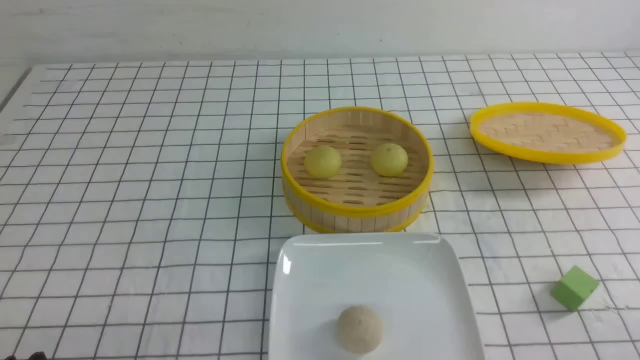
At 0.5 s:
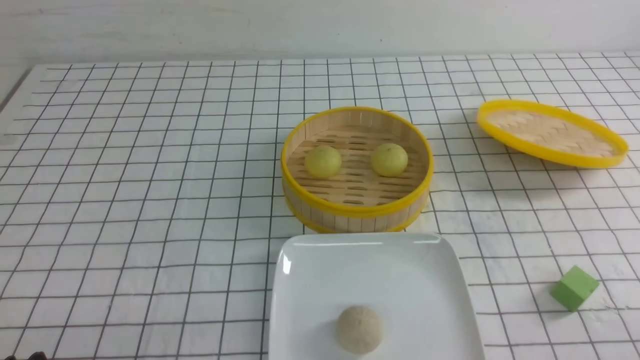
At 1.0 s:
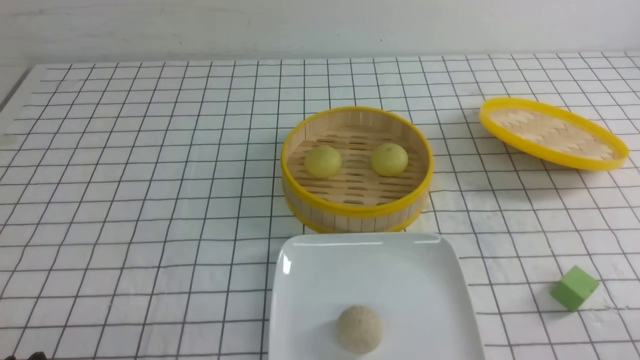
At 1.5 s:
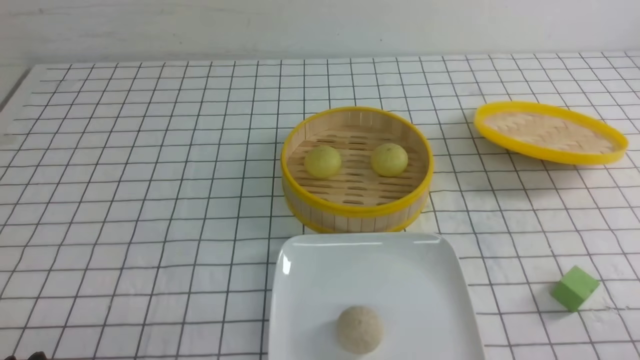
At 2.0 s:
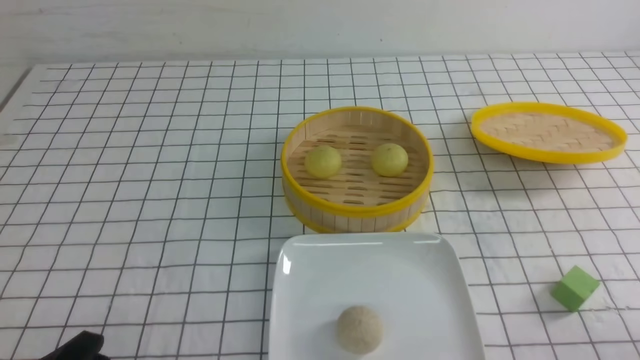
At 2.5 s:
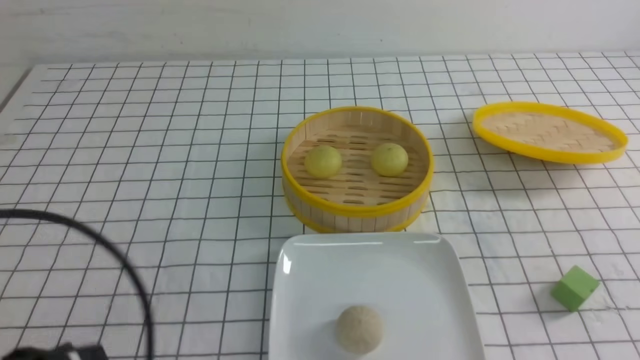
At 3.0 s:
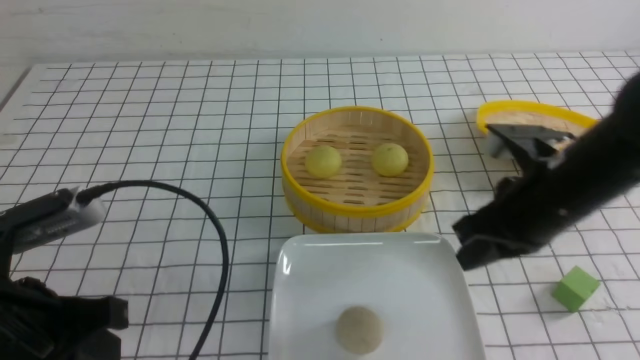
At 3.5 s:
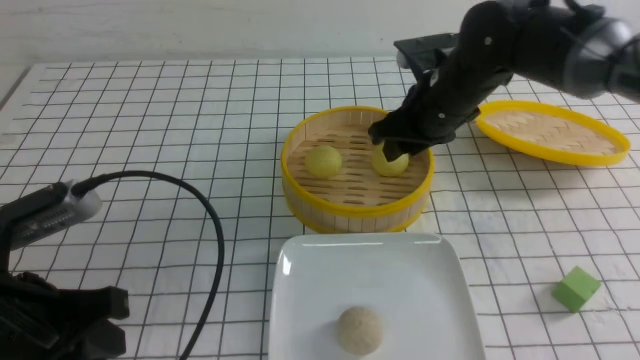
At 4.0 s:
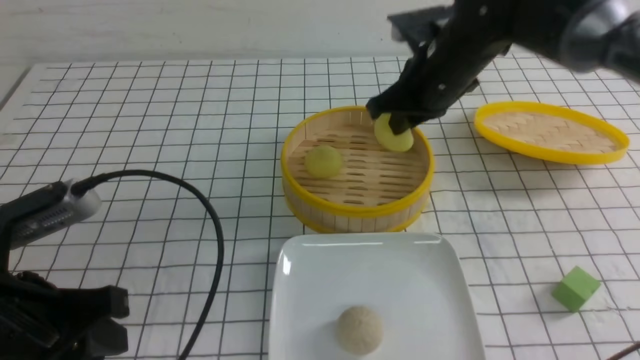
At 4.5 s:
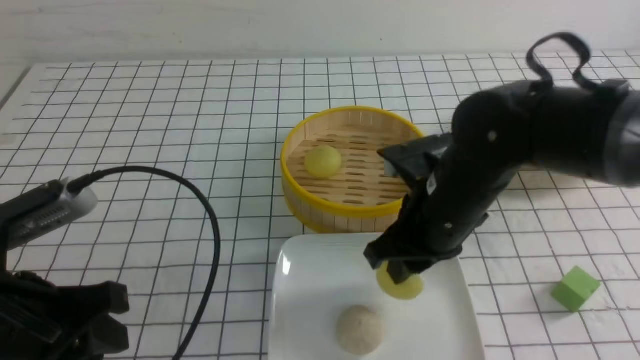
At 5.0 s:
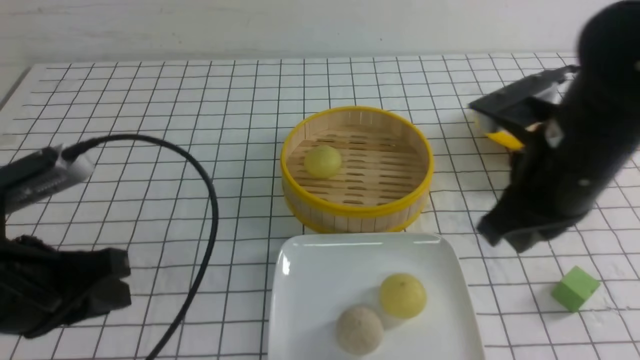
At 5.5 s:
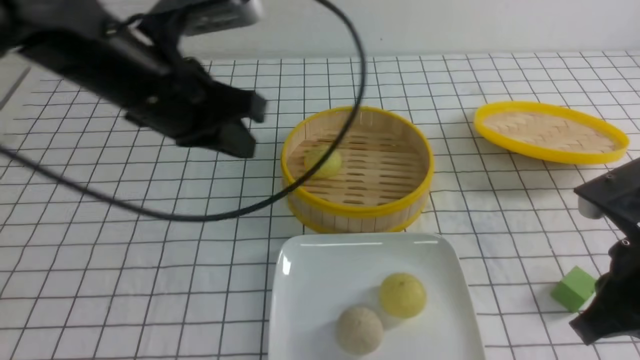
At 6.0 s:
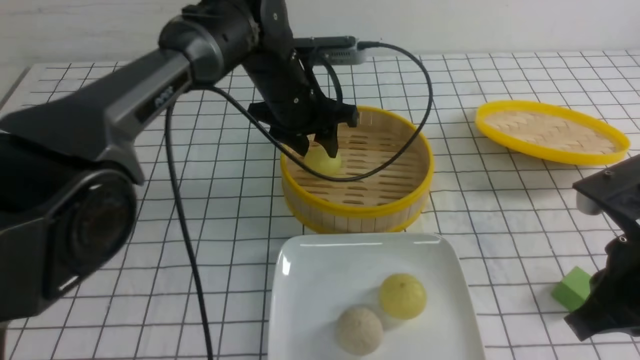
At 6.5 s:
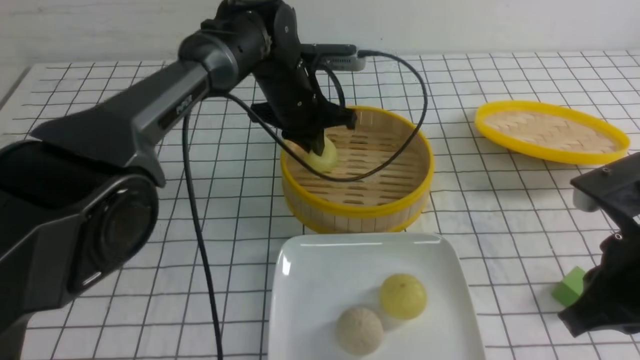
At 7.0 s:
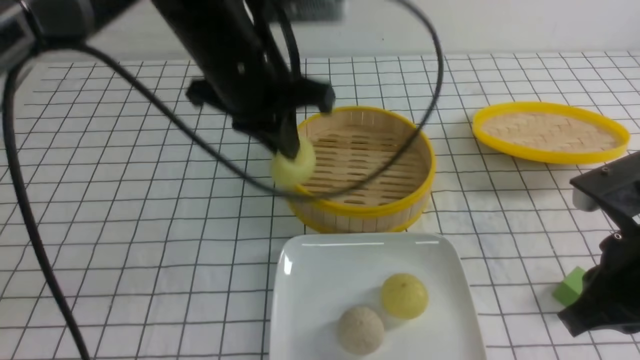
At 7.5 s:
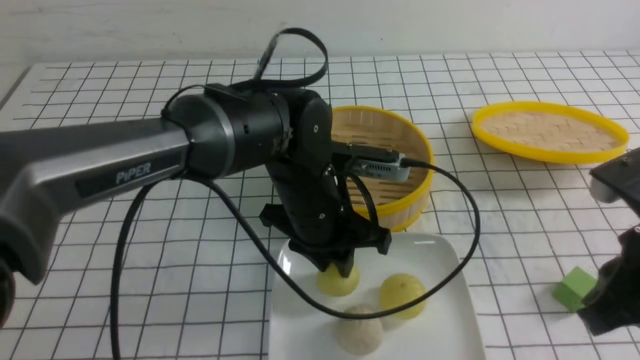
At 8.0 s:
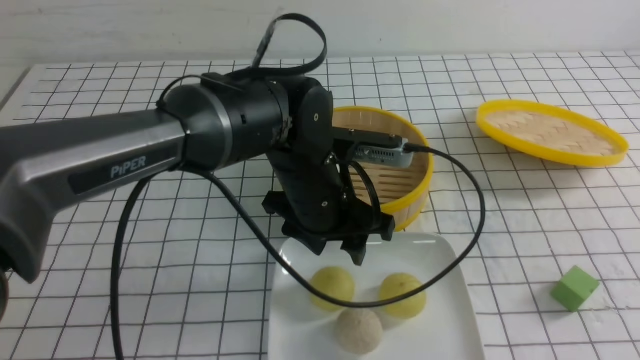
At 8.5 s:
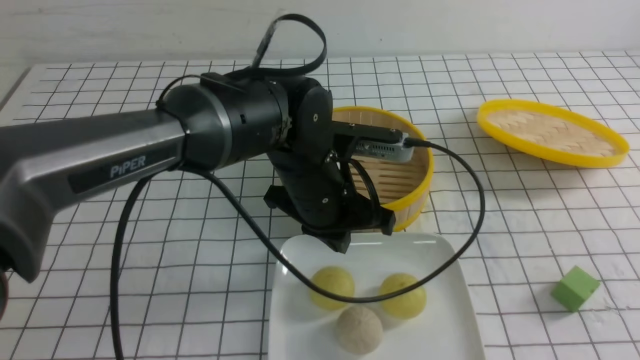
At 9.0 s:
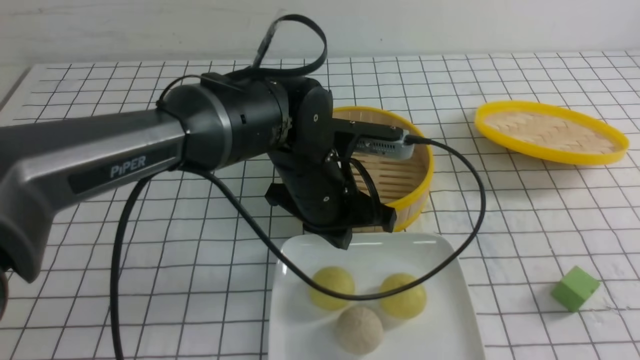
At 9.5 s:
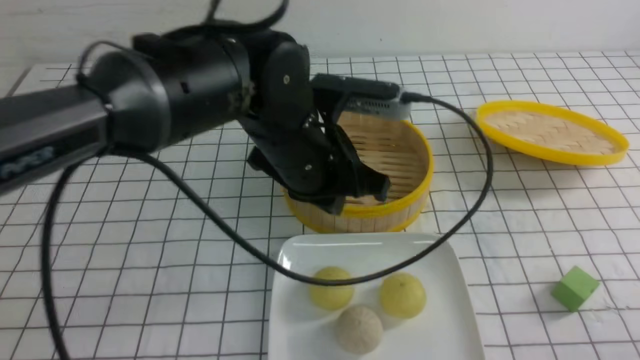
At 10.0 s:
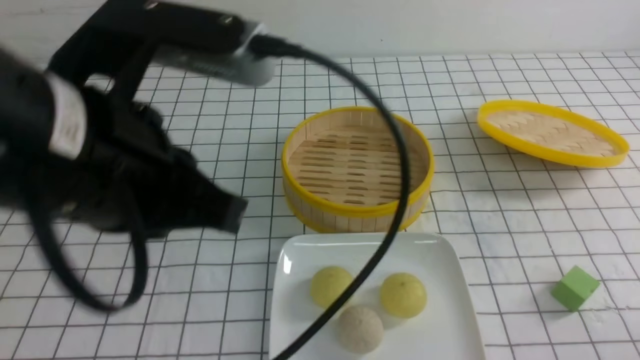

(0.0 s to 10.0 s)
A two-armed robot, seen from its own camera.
Step, 0.0 s - 3.5 s: use the right arm to grab the steamed stuffed bun that is closest to it.
Step, 4.0 s - 4.5 s: use the right arm to put the steamed stuffed bun into the plate.
Step, 5.0 s - 6.5 s: use the left arm to grab the steamed stuffed bun that is closest to it.
Step, 7.0 s - 8.0 s: use the left arm to put the steamed stuffed bun into the plate.
2.0 s - 4.0 s: The left gripper goes roughly 10 cm forward and upward, and closes, then opens again. Meanwhile the right gripper travels forward and to the left by about 40 cm, and closes.
4.0 s - 6.0 s: The left gripper shifts some 35 cm forward and to the right, and opens, while the right gripper moves backward and to the right, about 25 cm, and opens, then closes again.
6.0 s - 8.0 s: The left gripper moves backward, roughly 15 cm, and closes, then reopens; the right gripper shifts some 15 cm backward, to the right and upward.
8.0 s - 10.0 s: The left gripper goes about 25 cm upward, backward and to the left, and closes. The right gripper moves downward, some 15 cm.

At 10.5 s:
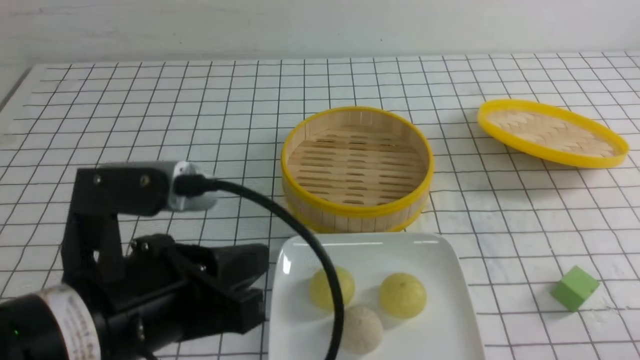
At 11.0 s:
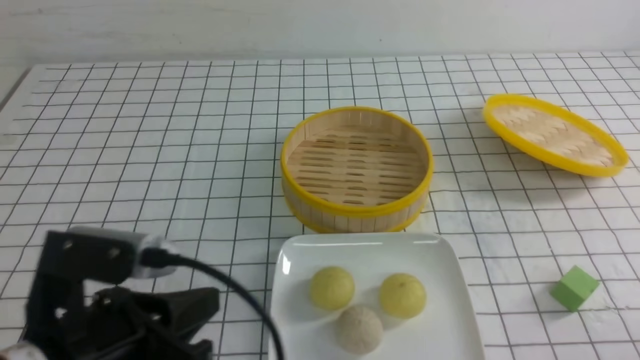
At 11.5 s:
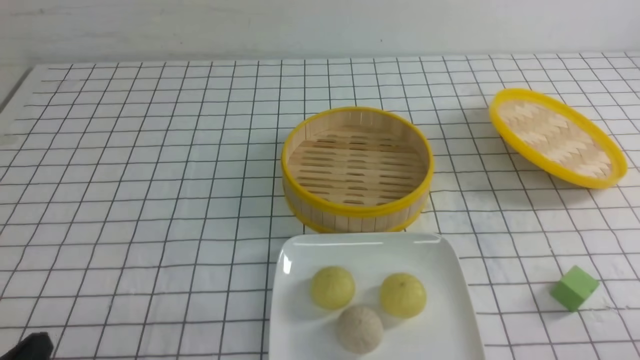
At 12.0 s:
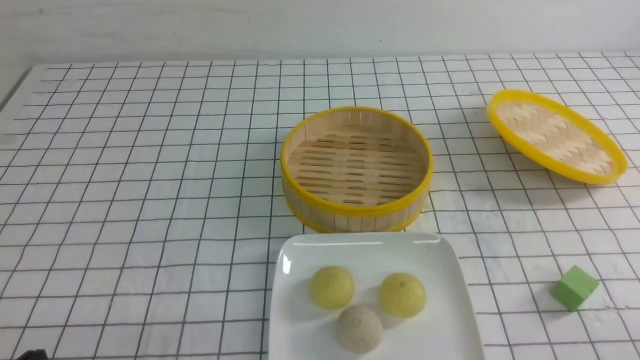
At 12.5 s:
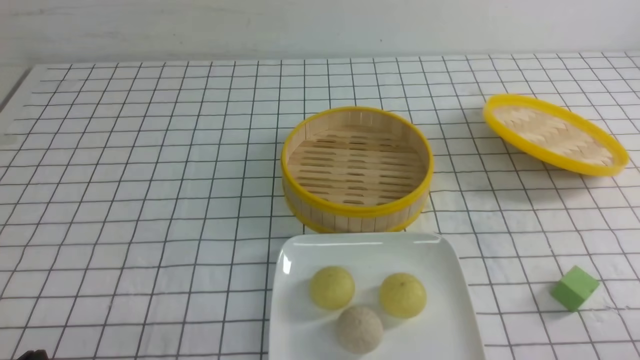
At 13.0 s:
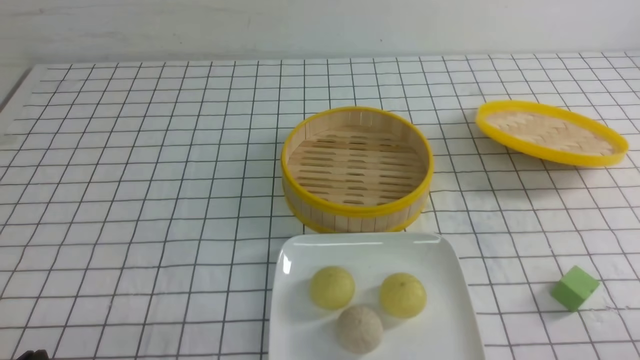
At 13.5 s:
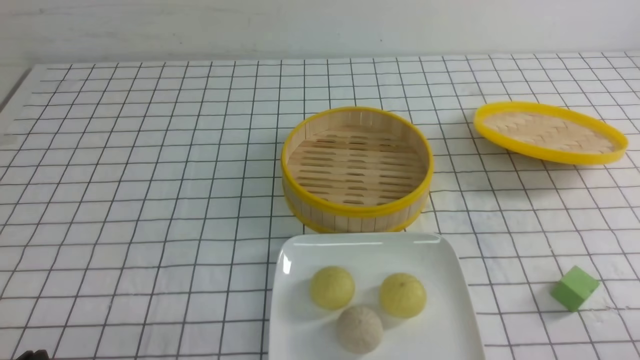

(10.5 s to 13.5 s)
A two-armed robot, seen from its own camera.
10.5 s - 12.0 s: The left gripper heads to the left, downward and backward, covering approximately 20 cm.
12.0 s - 13.5 s: Both grippers stay put.

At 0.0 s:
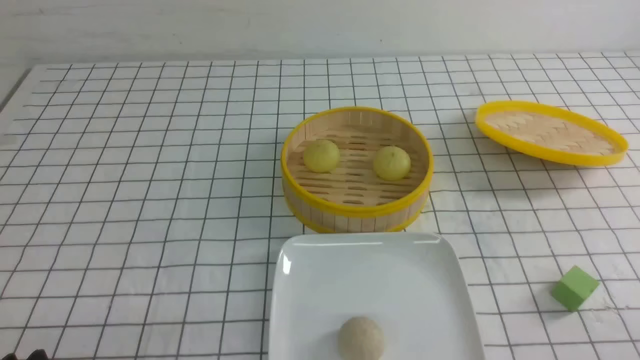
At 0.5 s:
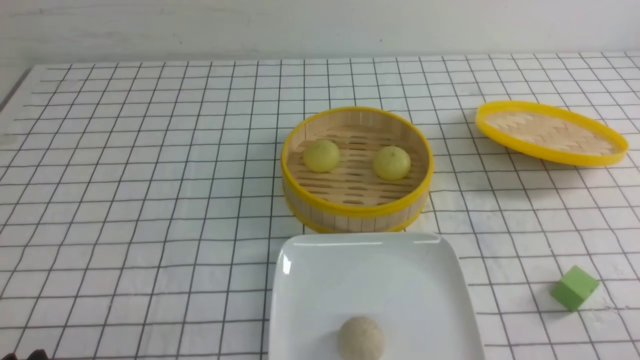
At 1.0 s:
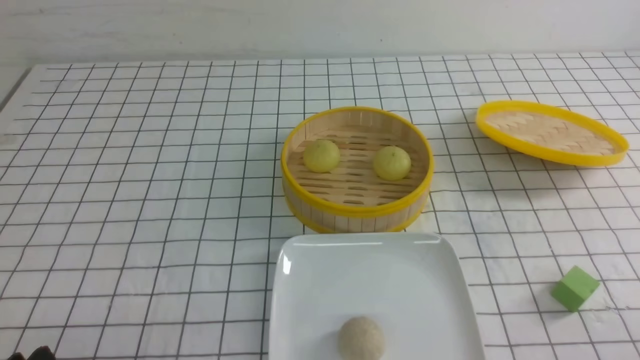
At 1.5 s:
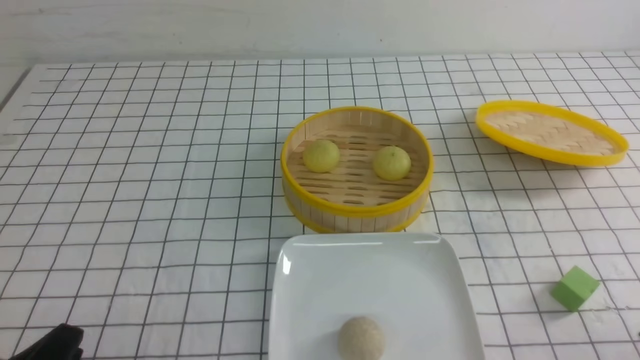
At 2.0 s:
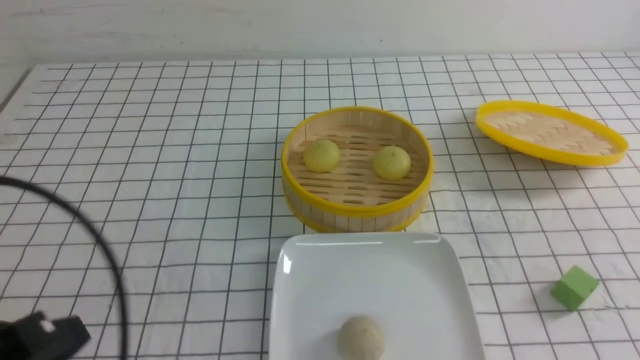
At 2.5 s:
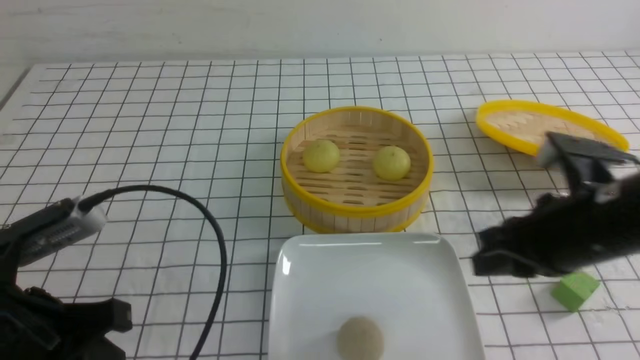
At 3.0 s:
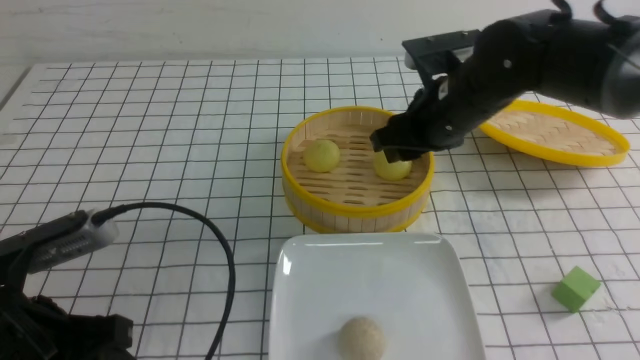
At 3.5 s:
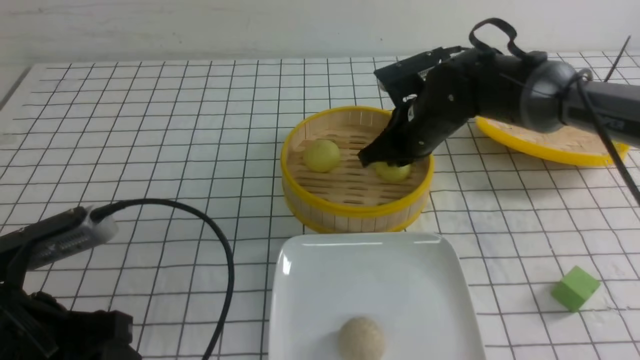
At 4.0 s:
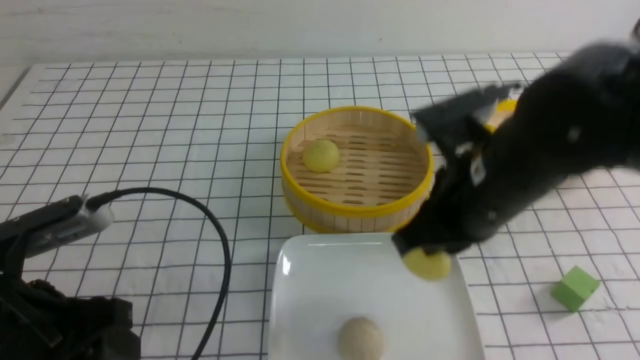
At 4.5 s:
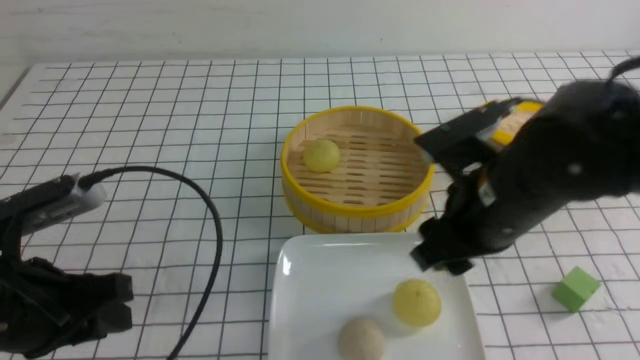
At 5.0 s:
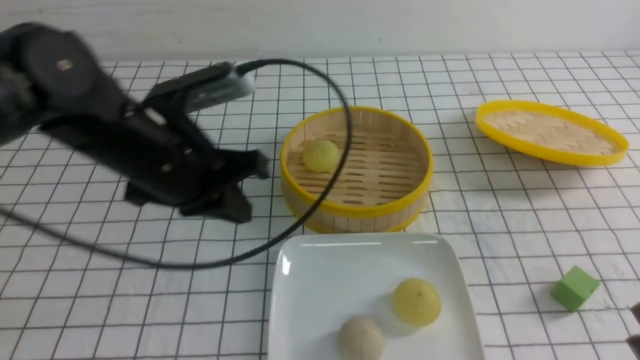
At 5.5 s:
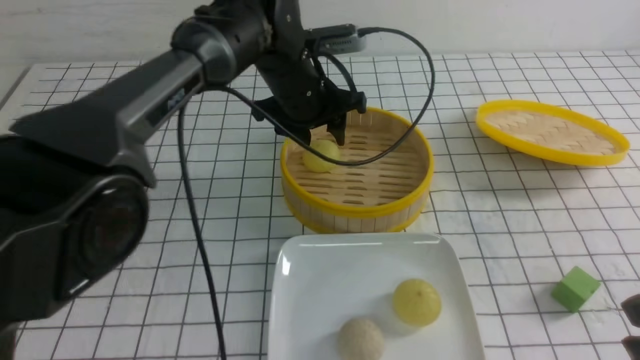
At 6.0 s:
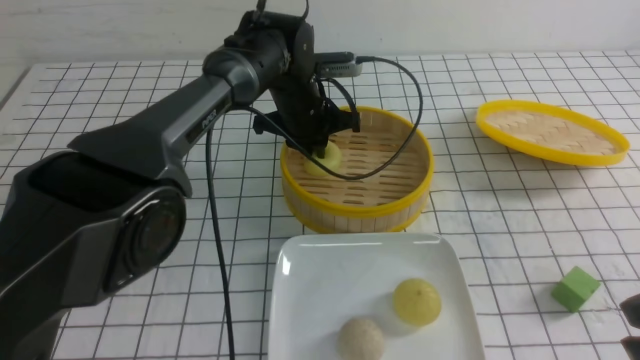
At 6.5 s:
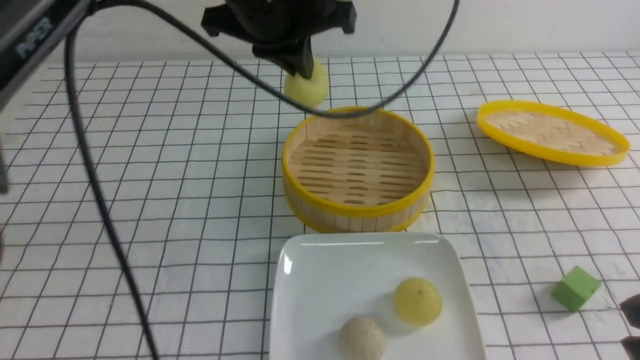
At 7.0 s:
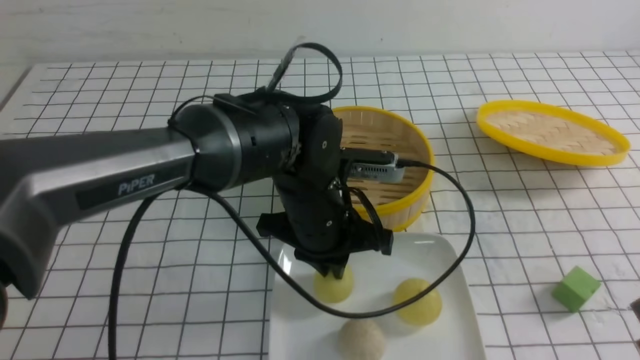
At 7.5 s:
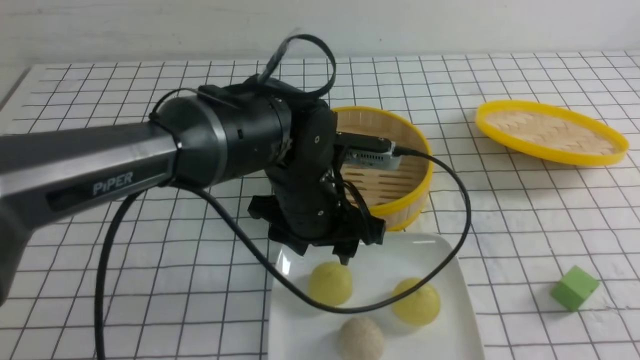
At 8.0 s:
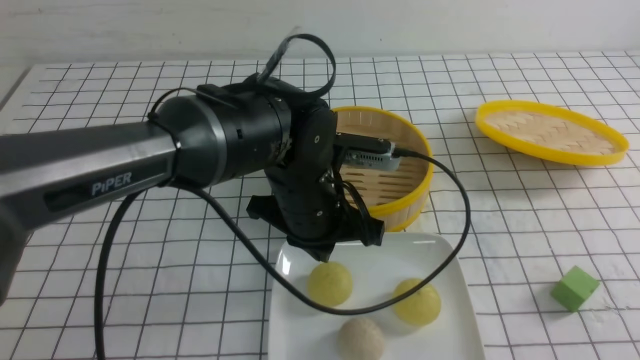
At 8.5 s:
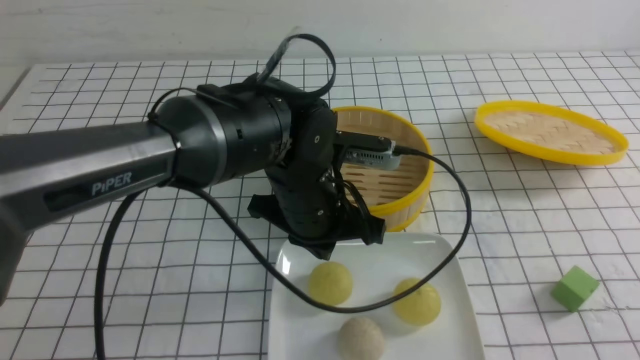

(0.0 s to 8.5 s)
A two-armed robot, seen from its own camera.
Step, 0.0 s - 3.5 s: use the right arm to grab the steamed stuffed bun that is closest to it.
Step, 4.5 s - 6.0 s: use the left arm to grab the steamed stuffed bun that is closest to it.
Step, 6.5 s - 7.0 s: use the left arm to put the steamed stuffed bun into the plate.
0.0 s - 2.0 s: The left gripper heads upward, covering about 10 cm, and closes its fingers.
2.0 s - 4.0 s: The right gripper shifts approximately 25 cm to the left and forward, and opens, then closes once more. Meanwhile the left gripper moves forward, some 10 cm, and opens.
4.0 s - 6.5 s: The left gripper moves forward, to the right and upward, some 30 cm, and closes its fingers. Meanwhile the right gripper heads backward and to the right, covering roughly 20 cm, and opens and closes again.
6.5 s - 8.5 s: The left gripper goes about 15 cm downward and backward, and opens, then closes once more, while the right gripper heads backward, covering about 10 cm.
